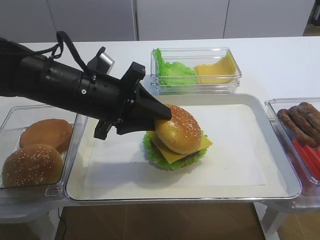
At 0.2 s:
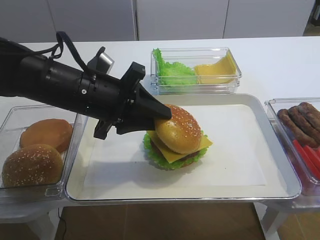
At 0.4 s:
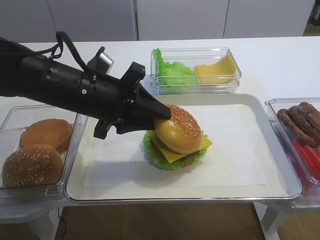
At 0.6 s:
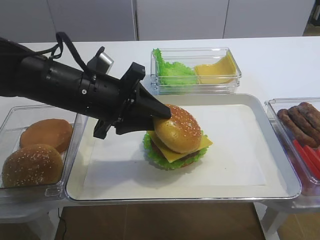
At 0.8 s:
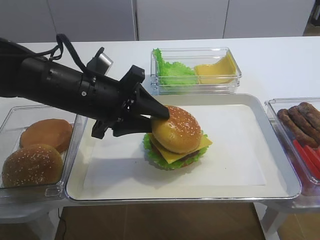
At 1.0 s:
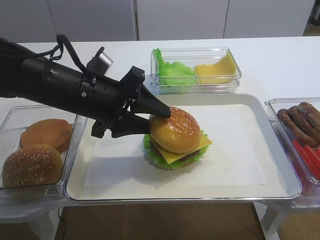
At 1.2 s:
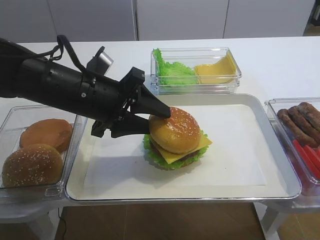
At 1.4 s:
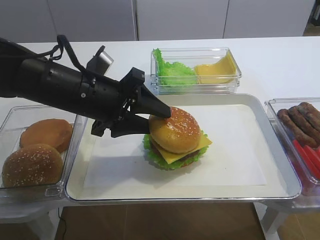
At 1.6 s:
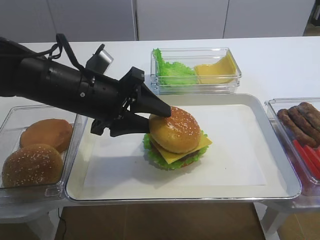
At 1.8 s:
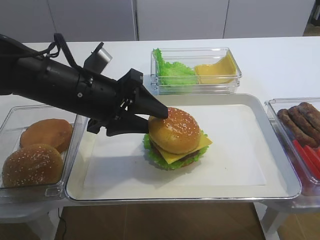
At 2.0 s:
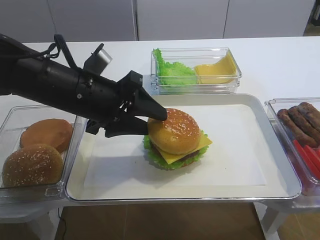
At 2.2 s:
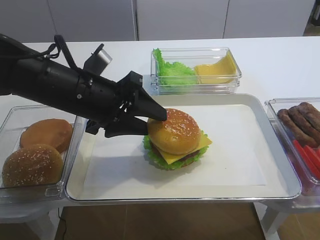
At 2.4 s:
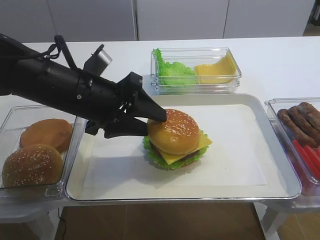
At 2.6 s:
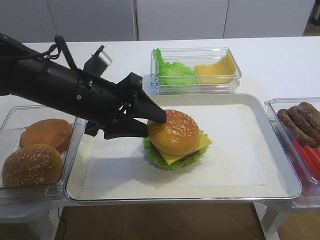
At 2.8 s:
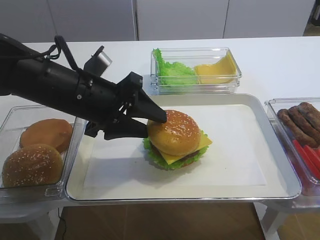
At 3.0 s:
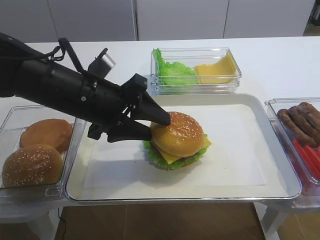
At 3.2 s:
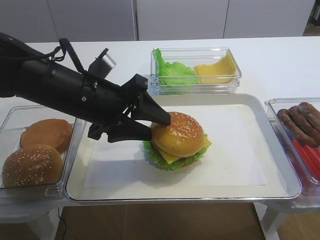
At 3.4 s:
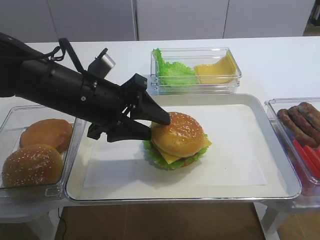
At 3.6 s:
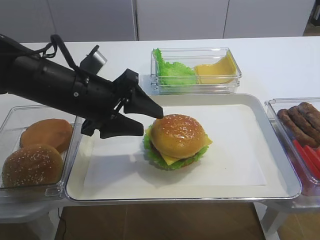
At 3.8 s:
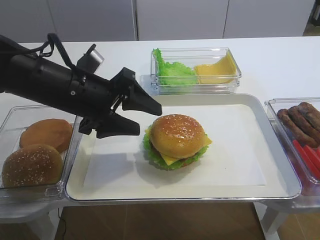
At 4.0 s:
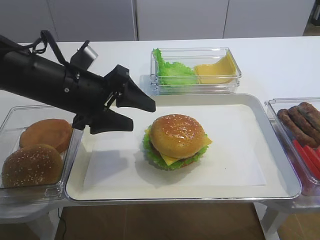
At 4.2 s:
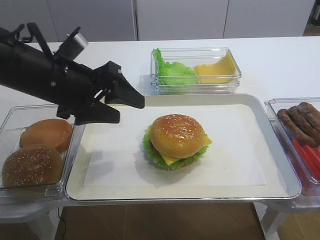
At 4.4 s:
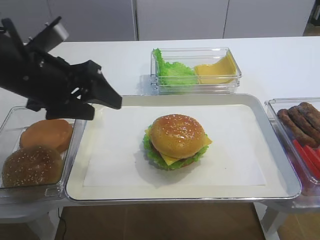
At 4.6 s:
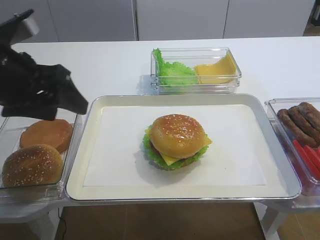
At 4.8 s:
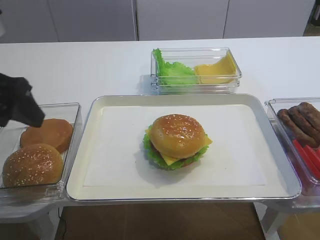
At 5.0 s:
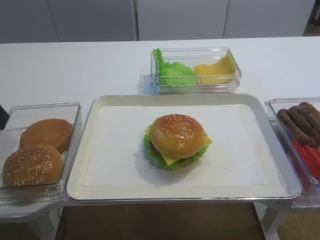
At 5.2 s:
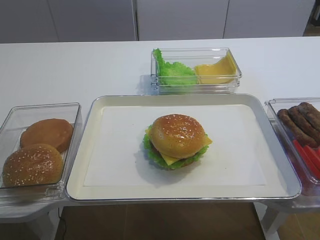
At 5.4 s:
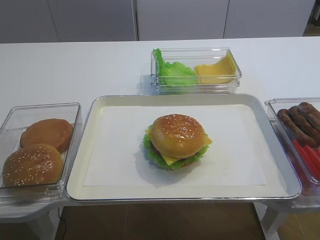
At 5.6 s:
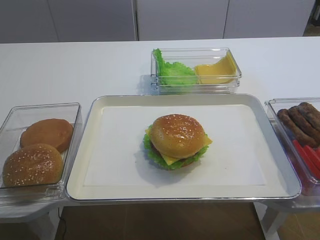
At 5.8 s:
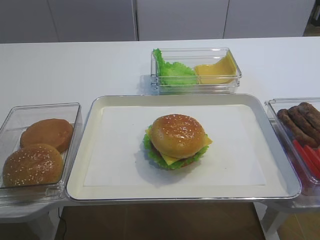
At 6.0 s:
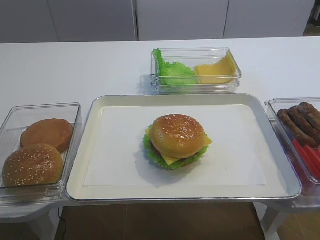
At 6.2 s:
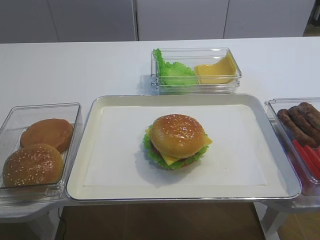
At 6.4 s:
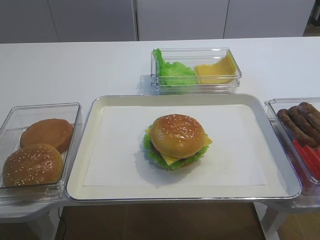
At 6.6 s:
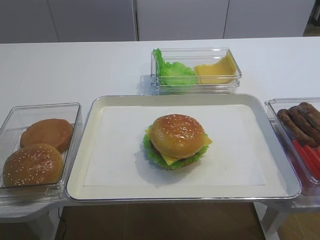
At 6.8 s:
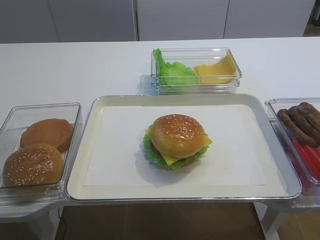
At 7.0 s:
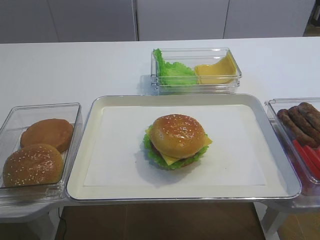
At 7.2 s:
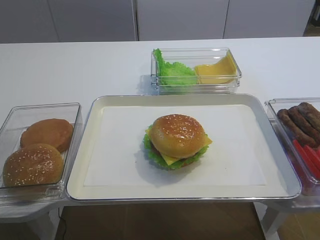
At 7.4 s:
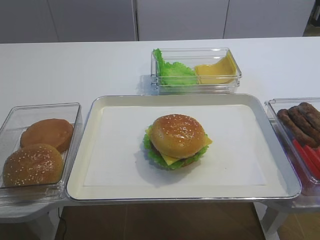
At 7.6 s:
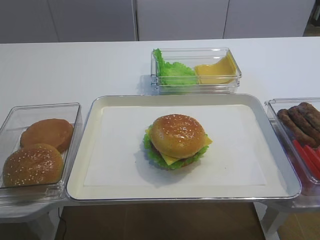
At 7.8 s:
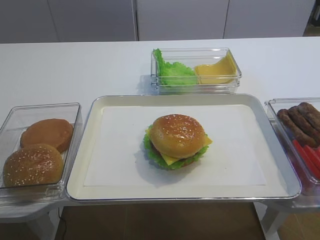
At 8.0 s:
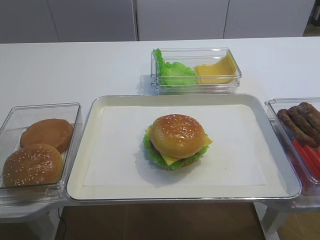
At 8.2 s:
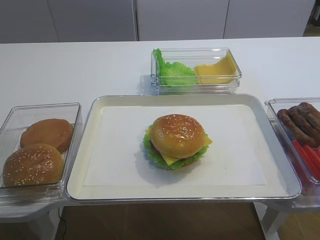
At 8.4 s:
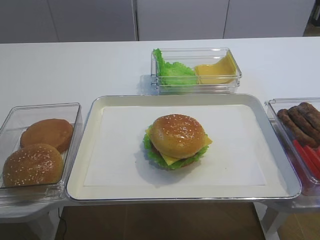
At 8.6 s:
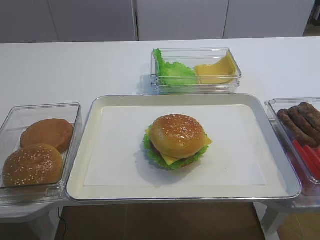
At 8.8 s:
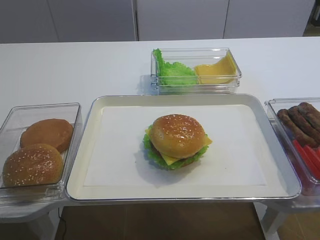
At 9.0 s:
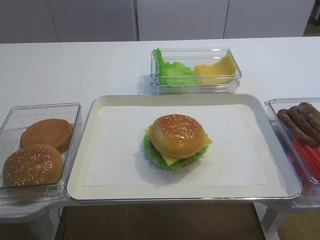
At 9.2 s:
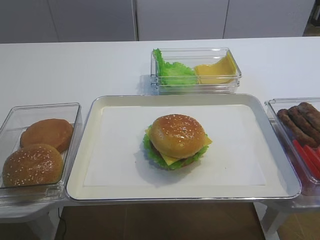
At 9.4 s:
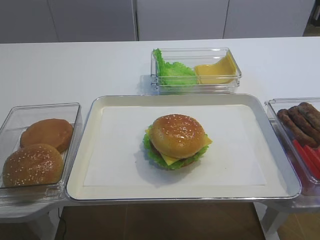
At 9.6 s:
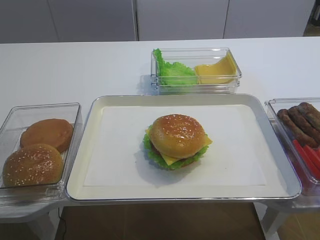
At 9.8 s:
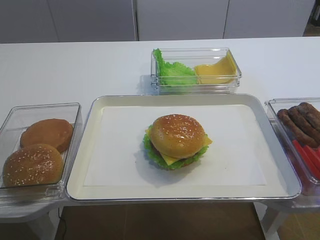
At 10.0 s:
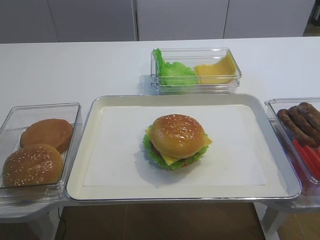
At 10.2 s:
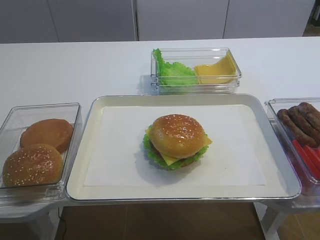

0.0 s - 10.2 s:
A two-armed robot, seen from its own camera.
Step, 0.0 s - 4.4 s: Place the hamburger lid on the cheese slice with the left gripper.
0.0 s - 1.4 s: The left gripper opens.
1.4 s - 3.0 s: There are only small adjustments of the grippers.
3.0 s - 4.4 s: The left gripper goes some 5 cm to the left, and opens up.
4.4 s - 5.8 s: The left gripper is displaced backward, to the left and upward by approximately 25 cm.
8.8 s - 10.2 s: Both grippers stay about where they are.

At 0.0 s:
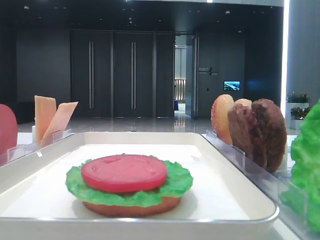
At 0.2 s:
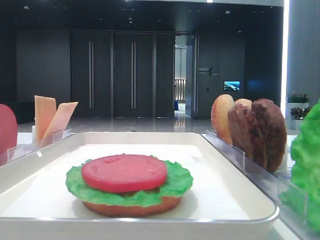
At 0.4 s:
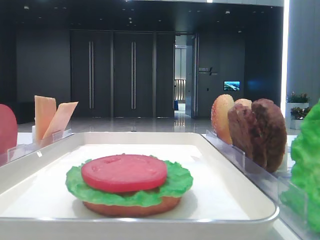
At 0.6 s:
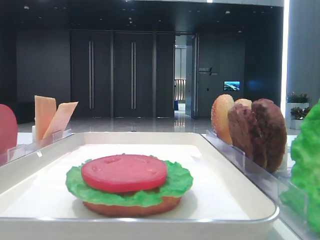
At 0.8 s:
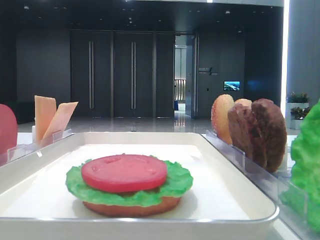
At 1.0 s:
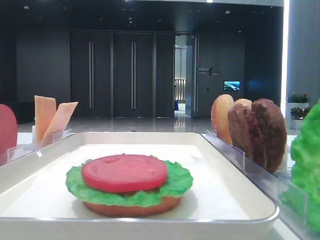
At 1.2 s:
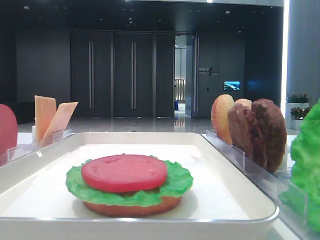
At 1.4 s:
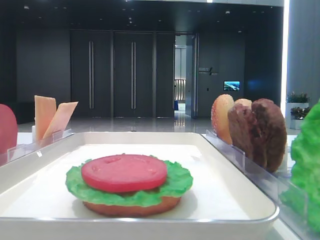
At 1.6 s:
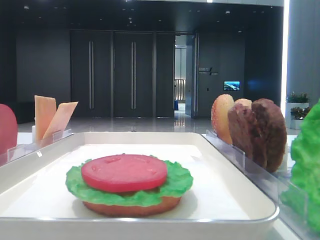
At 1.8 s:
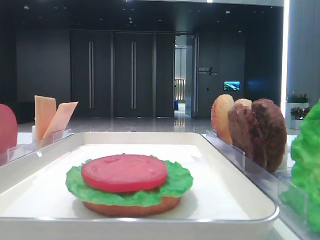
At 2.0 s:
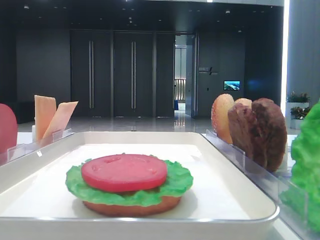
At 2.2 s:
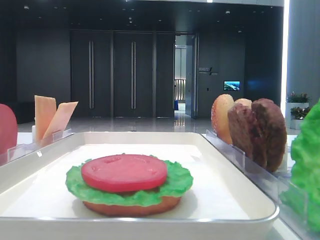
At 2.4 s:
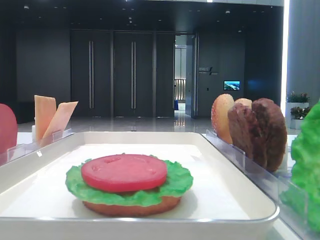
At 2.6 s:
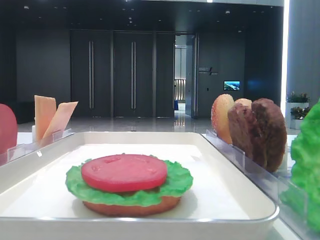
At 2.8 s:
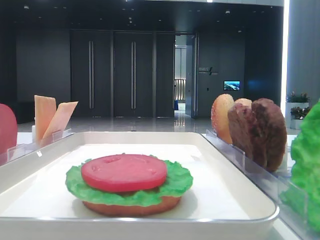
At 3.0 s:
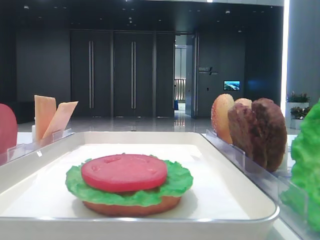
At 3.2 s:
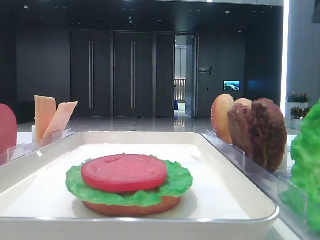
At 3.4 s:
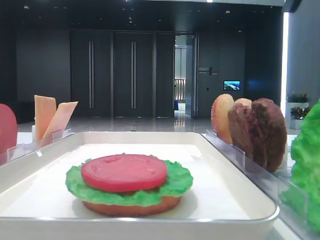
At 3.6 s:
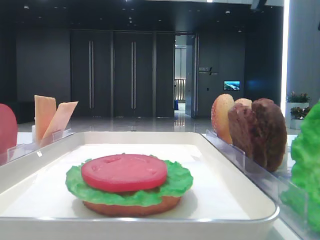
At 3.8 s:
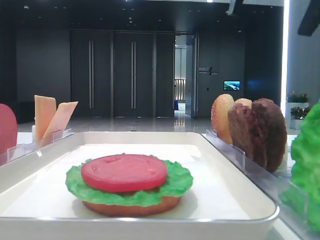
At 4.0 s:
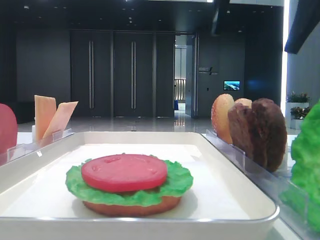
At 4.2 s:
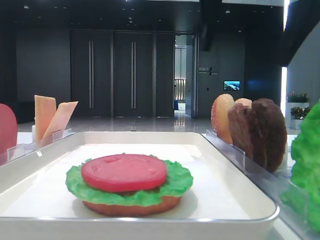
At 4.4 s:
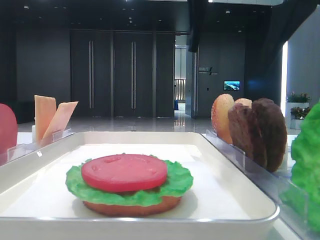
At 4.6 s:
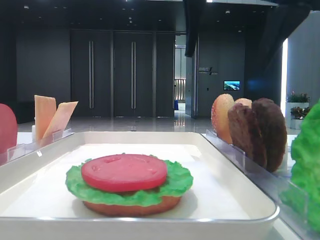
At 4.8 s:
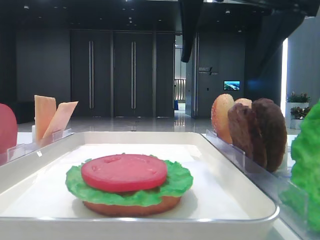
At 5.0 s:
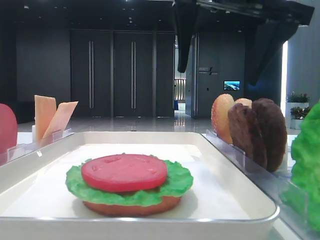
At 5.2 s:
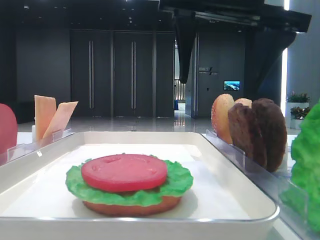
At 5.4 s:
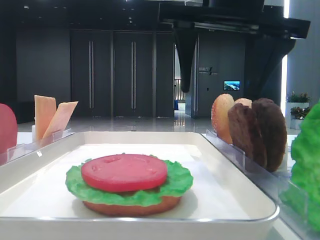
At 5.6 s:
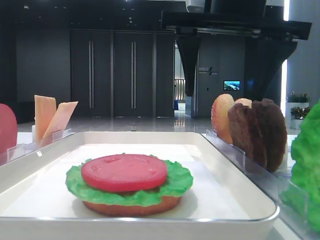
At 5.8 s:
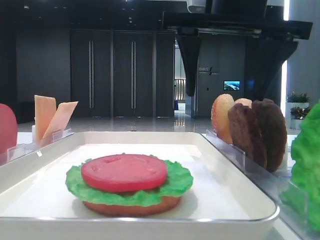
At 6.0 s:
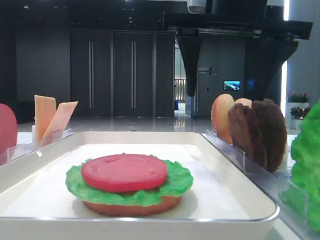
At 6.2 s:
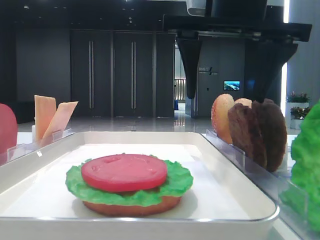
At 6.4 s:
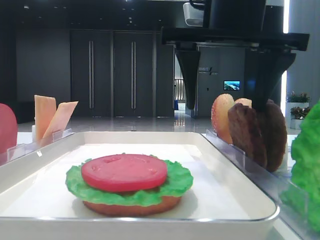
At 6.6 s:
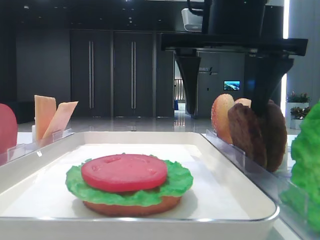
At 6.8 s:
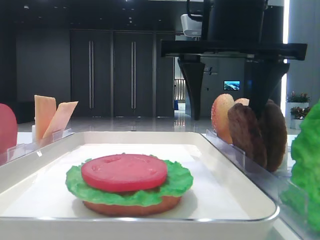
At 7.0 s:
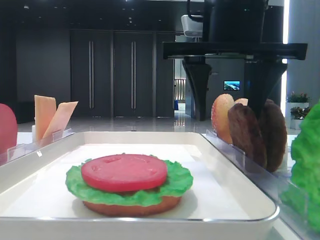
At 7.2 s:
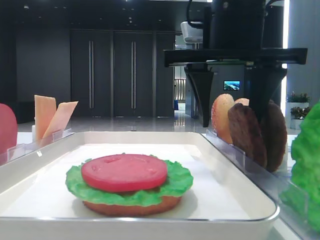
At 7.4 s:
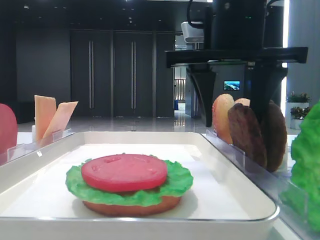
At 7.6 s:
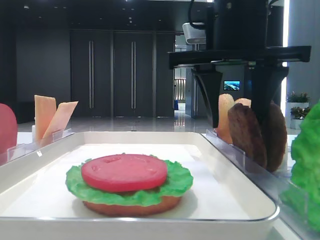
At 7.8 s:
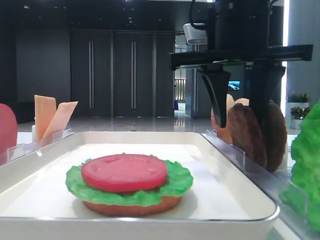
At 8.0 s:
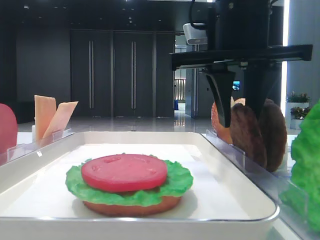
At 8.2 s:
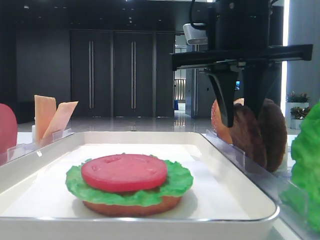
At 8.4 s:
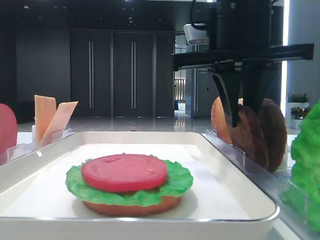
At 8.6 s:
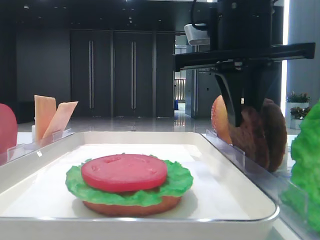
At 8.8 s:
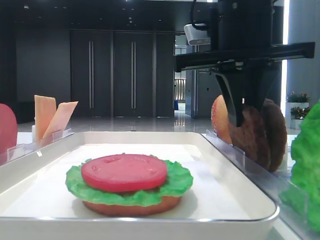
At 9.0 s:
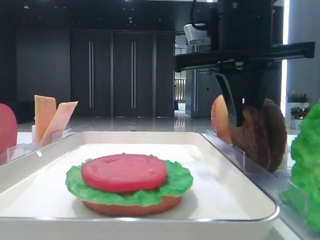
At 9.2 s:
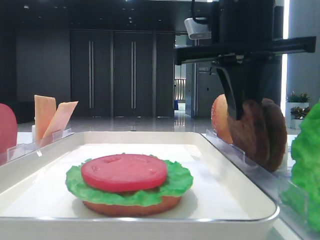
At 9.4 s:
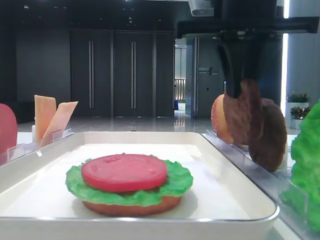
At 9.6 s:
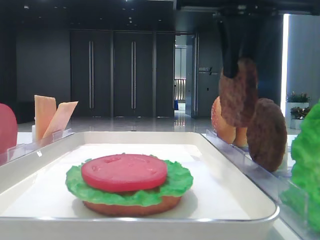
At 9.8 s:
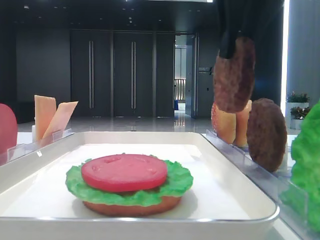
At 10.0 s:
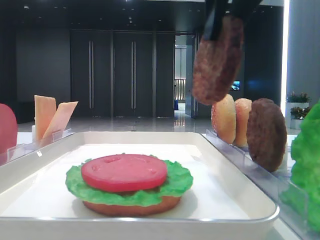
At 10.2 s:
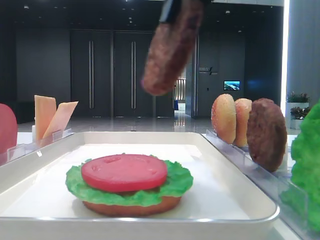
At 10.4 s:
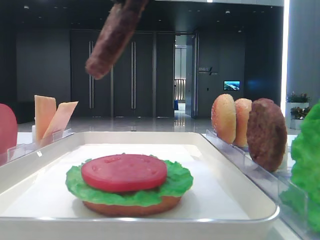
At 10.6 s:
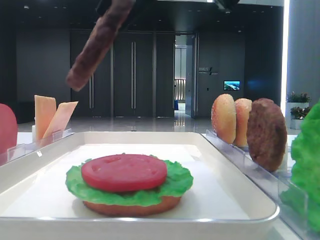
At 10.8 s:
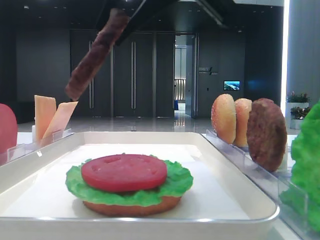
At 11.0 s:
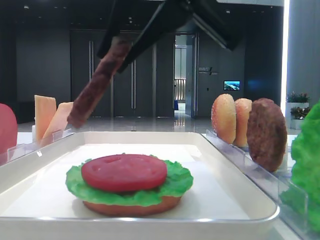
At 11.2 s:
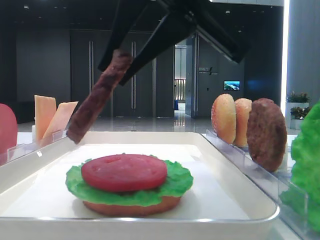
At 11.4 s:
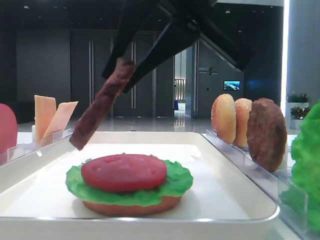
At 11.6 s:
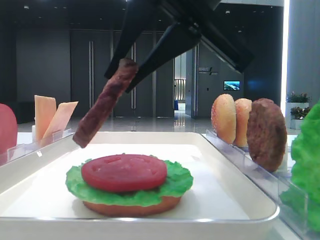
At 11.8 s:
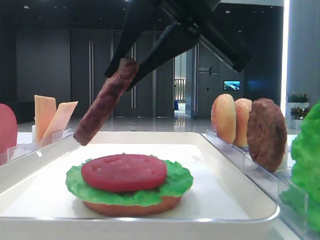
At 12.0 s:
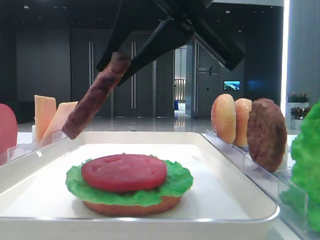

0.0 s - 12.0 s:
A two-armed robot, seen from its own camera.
Step, 0.0 s - 8.8 s: Grab the patty with the right hand.
3.0 s - 4.4 s: The right gripper heads to the left, covering about 15 cm.
4.4 s - 6.0 s: The left gripper closes its fingers.
6.0 s - 7.6 s: The right gripper closes its fingers.
7.6 s - 9.0 s: The right gripper closes its fingers.
9.0 s - 10.4 s: The right gripper heads upward and backward, covering some 10 cm.
10.4 s - 12.0 s: The right gripper heads downward, covering approximately 5 cm.
